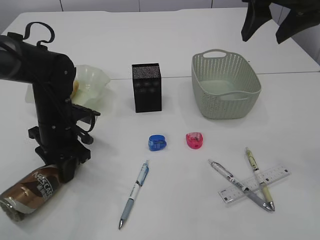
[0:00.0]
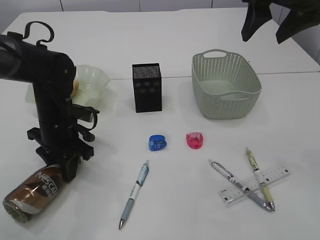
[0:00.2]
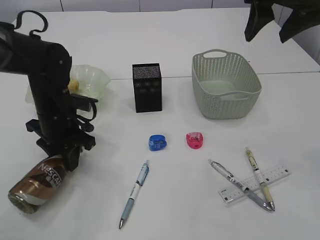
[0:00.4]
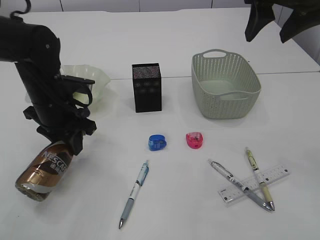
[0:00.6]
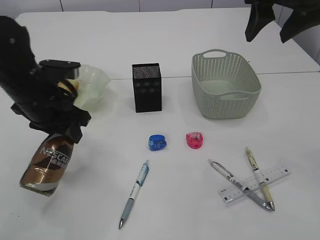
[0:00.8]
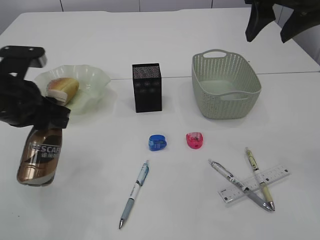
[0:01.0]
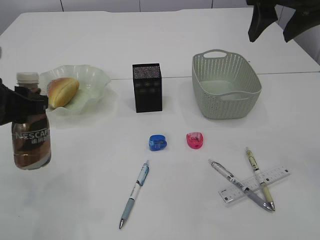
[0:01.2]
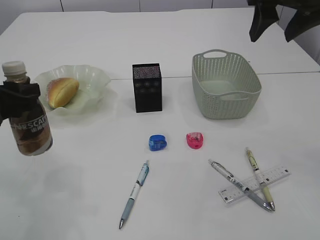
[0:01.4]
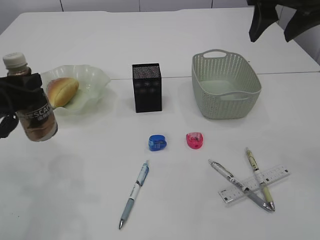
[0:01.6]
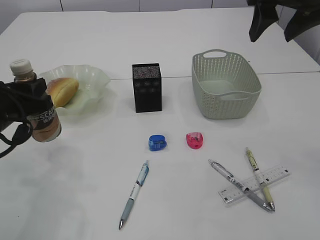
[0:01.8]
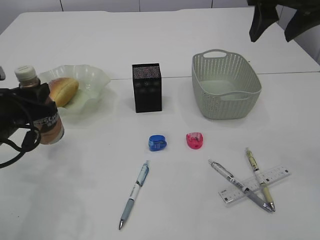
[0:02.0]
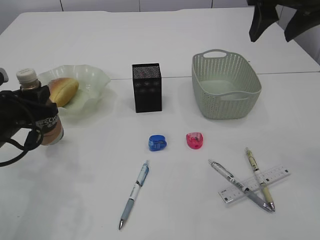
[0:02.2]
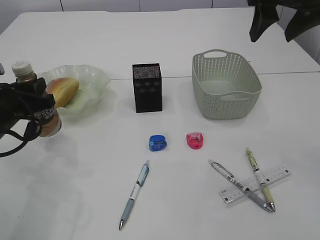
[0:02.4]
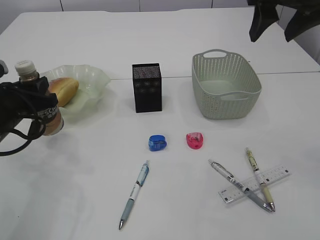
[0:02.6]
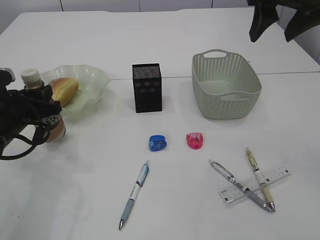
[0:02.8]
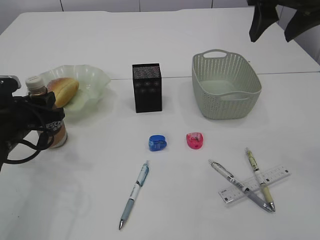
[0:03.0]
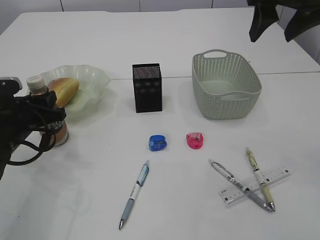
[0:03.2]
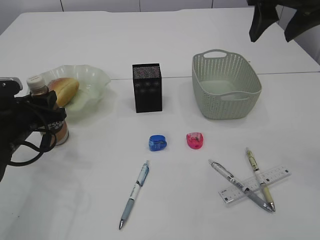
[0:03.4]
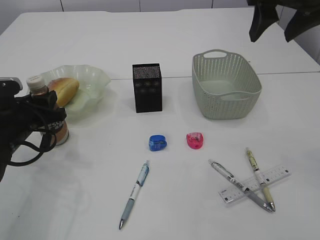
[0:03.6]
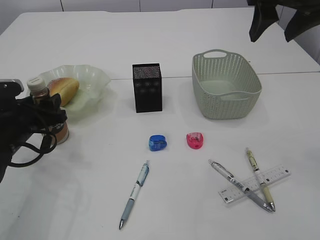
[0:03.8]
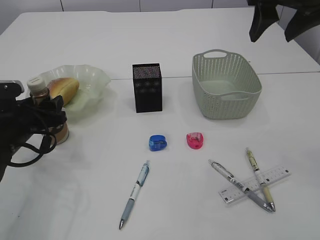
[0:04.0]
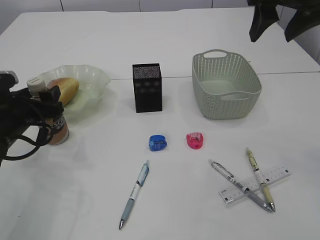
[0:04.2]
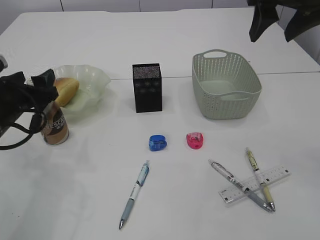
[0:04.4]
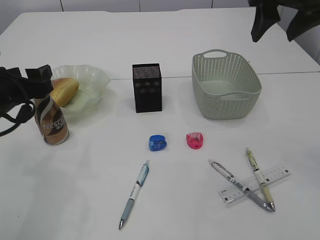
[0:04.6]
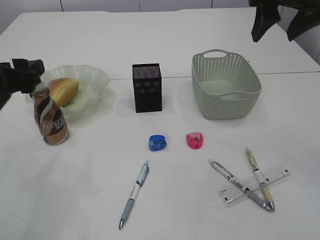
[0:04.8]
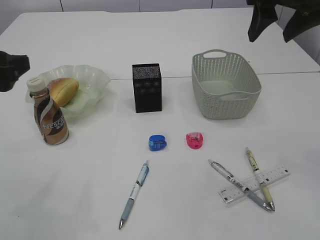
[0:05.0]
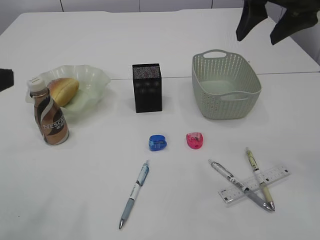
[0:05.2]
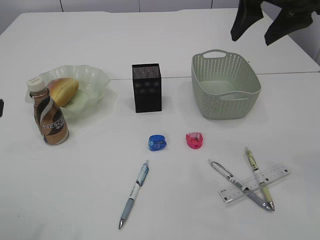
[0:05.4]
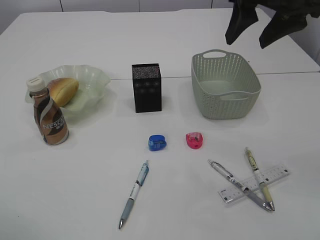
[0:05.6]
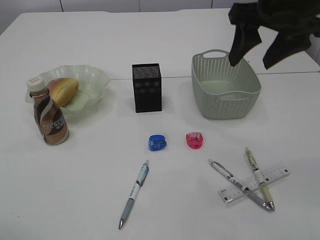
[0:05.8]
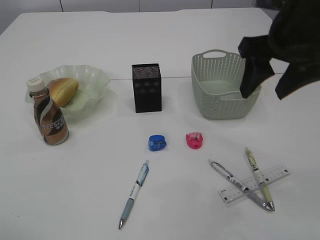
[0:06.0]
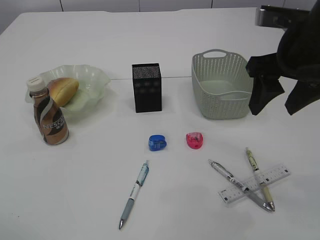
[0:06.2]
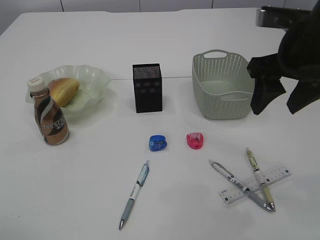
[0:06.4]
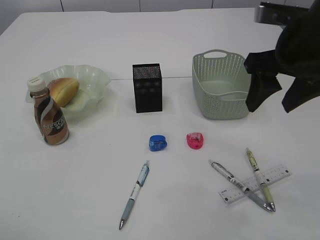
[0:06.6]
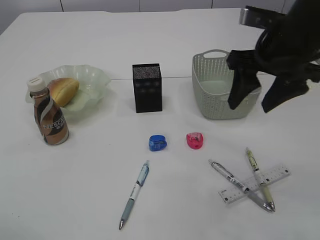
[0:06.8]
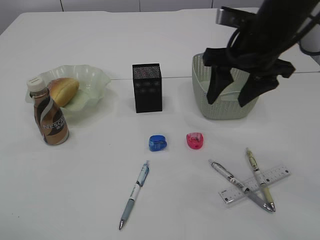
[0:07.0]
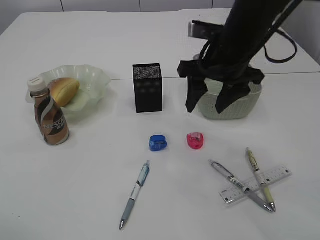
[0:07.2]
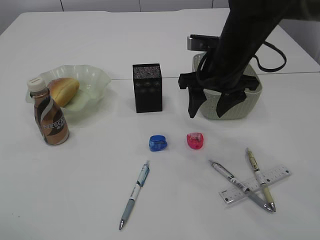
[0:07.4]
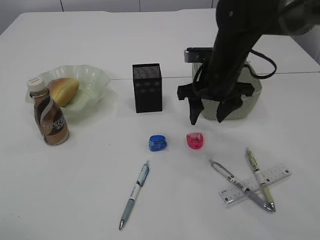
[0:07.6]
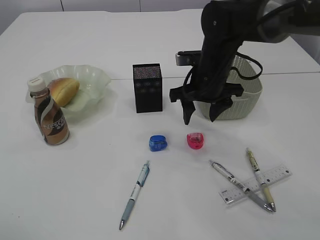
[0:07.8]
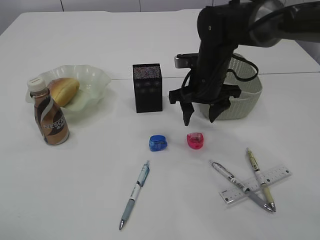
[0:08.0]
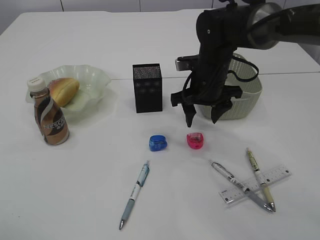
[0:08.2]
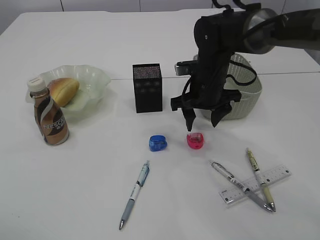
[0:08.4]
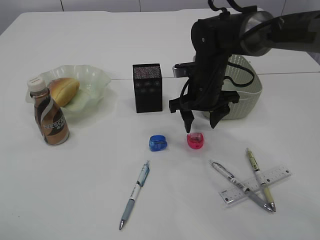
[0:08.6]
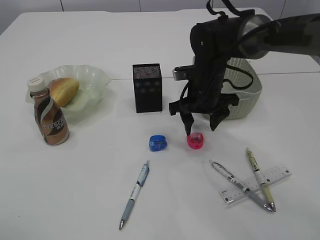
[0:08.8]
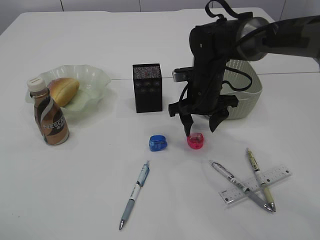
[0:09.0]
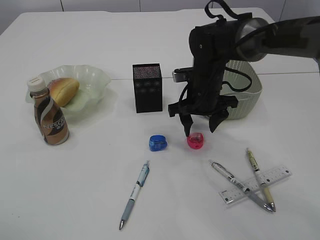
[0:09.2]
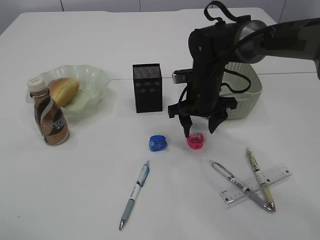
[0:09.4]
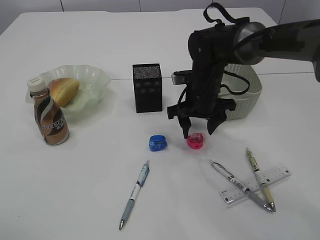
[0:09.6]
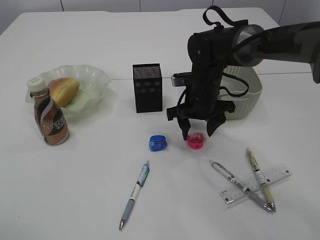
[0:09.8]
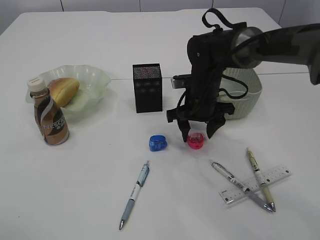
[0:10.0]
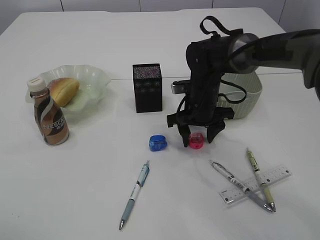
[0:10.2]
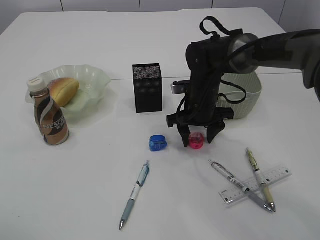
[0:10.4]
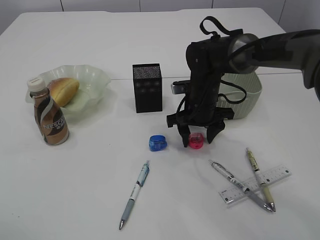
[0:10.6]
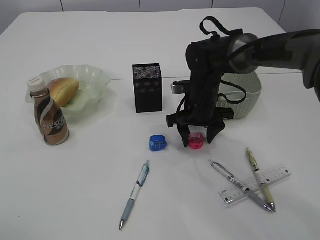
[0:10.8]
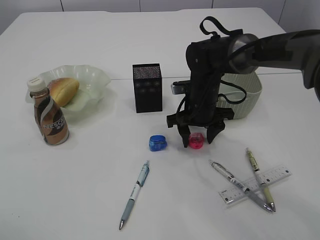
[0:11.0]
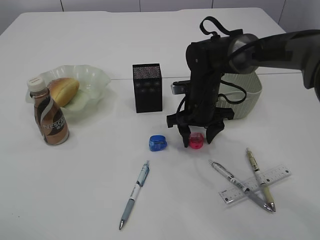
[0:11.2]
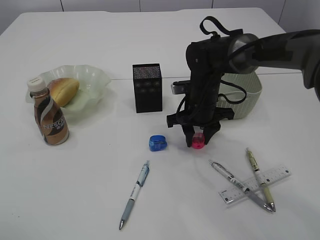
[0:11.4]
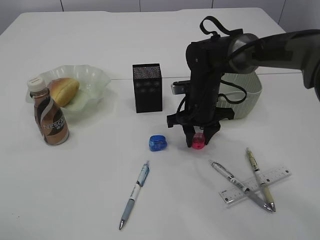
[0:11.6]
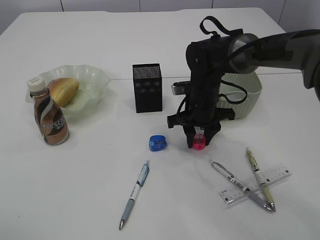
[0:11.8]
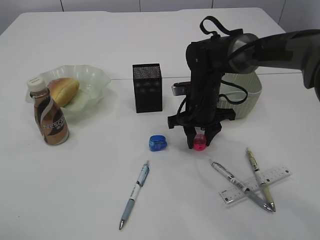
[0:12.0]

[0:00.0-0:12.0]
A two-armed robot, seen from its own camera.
Step, 0:01.0 to 0:05.0: Place the bottle.
0:00.0 to 0:01.6: The left gripper travels upward, backward and to the left by approximately 15 cm.
0:01.6 to 0:03.0: The left gripper travels downward by approximately 10 cm.
0:03.0 to 0:04.4: The left gripper opens.
0:04.4 to 0:06.0: The left gripper shifts roughly 20 cm backward and upward; the right gripper moves about 5 cm.
0:06.0 to 0:07.6: The right gripper goes about 15 cm downward, forward and to the left.
0:07.6 to 0:09.0: The right gripper heads downward, covering about 5 cm.
0:09.0 to 0:10.4: The grippers make only small movements.
0:10.4 to 0:12.0: The right gripper closes.

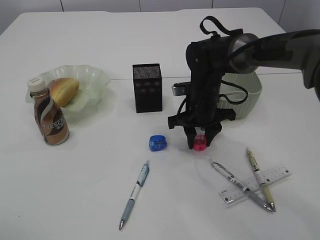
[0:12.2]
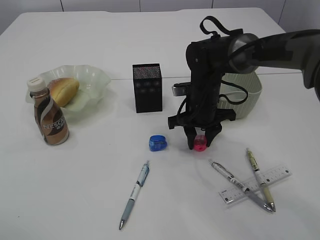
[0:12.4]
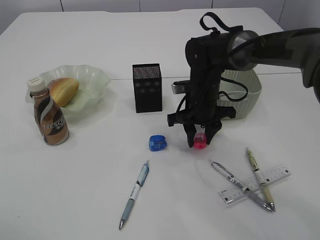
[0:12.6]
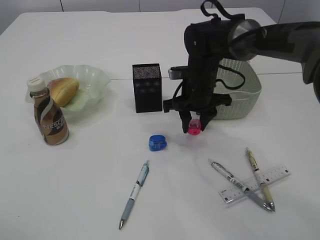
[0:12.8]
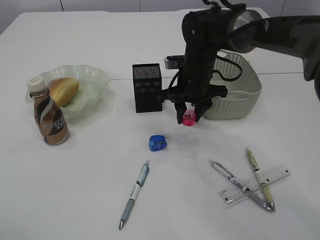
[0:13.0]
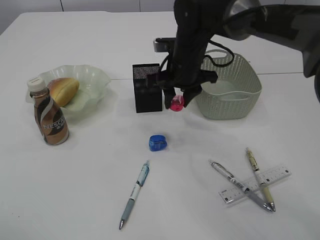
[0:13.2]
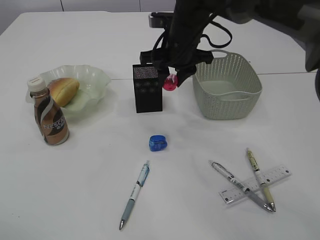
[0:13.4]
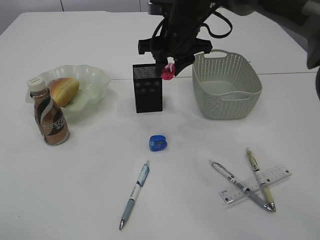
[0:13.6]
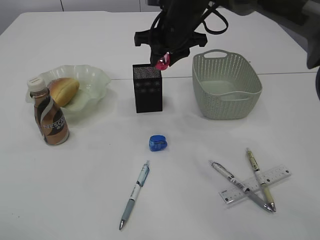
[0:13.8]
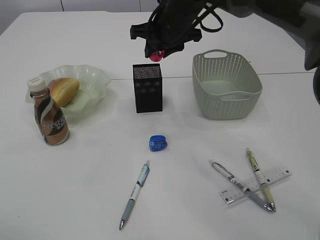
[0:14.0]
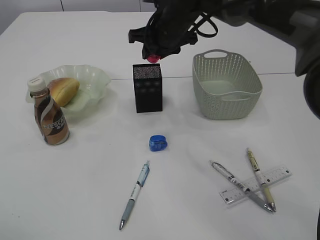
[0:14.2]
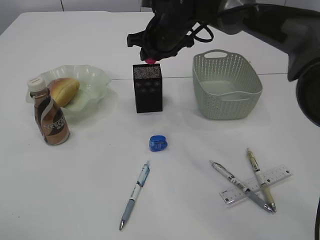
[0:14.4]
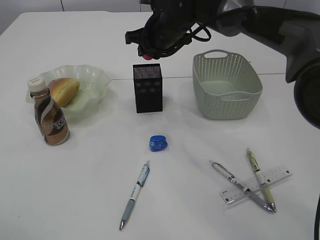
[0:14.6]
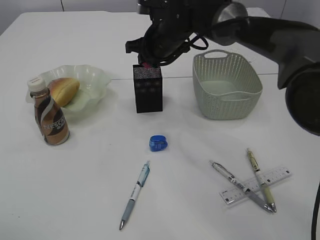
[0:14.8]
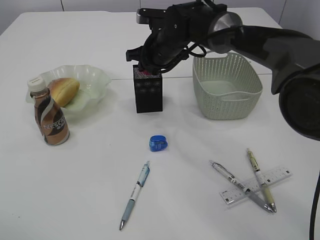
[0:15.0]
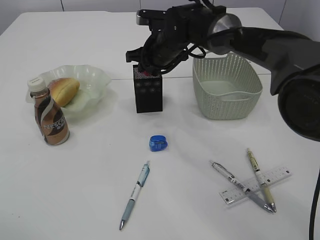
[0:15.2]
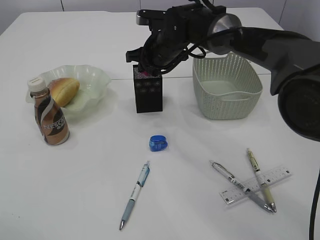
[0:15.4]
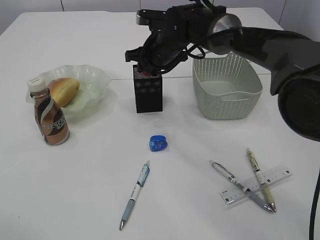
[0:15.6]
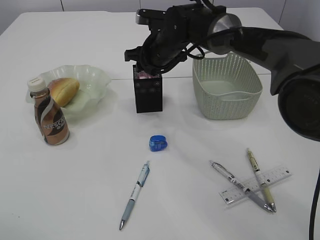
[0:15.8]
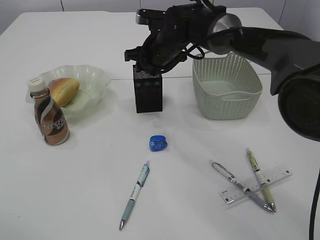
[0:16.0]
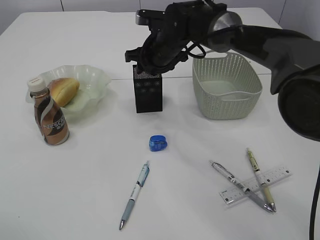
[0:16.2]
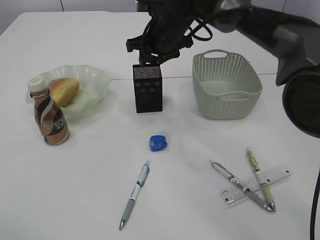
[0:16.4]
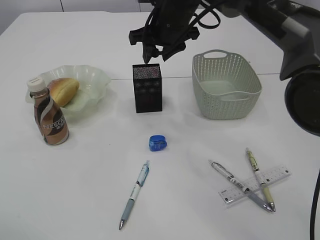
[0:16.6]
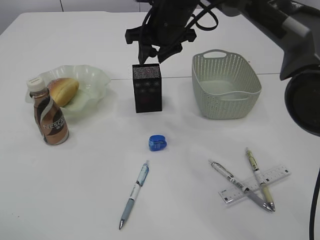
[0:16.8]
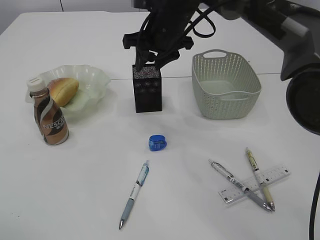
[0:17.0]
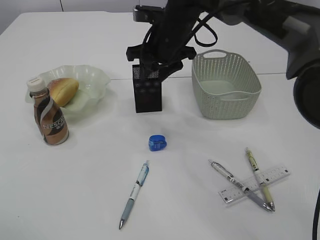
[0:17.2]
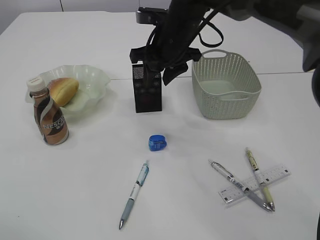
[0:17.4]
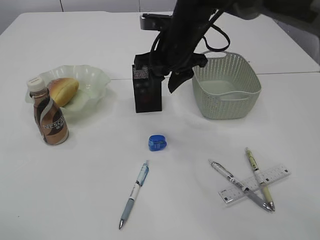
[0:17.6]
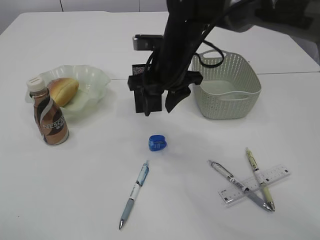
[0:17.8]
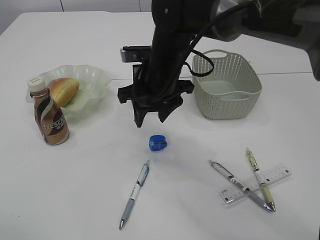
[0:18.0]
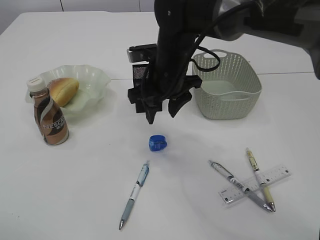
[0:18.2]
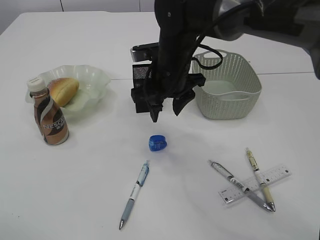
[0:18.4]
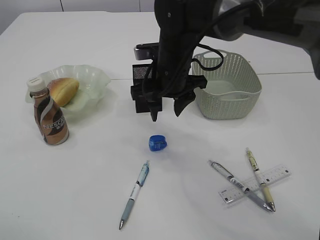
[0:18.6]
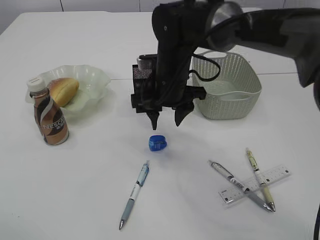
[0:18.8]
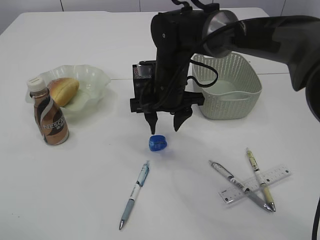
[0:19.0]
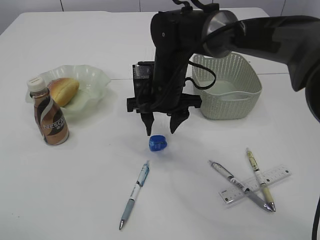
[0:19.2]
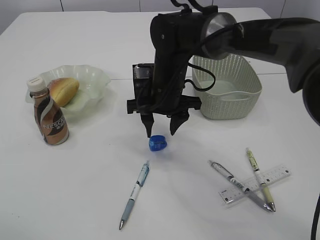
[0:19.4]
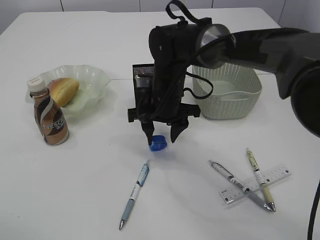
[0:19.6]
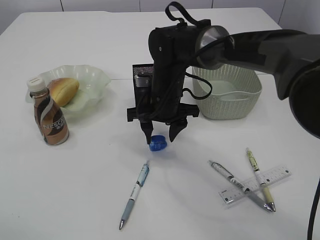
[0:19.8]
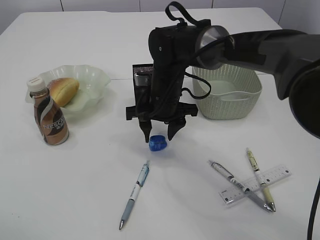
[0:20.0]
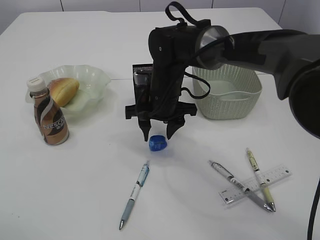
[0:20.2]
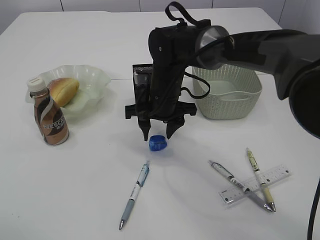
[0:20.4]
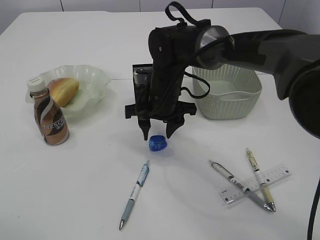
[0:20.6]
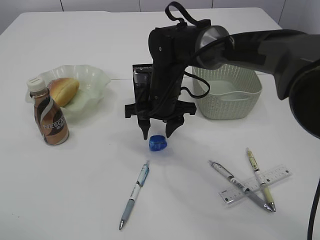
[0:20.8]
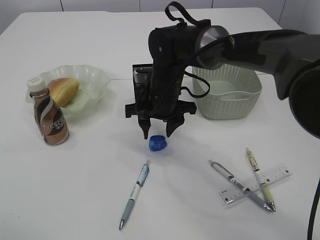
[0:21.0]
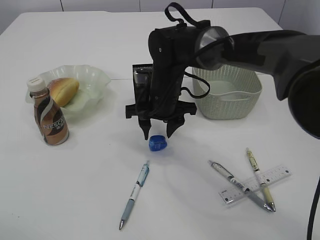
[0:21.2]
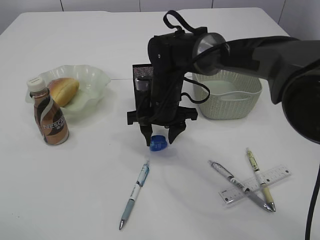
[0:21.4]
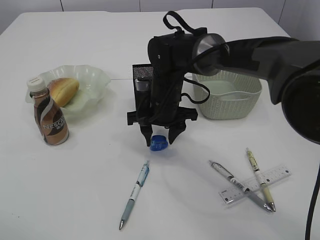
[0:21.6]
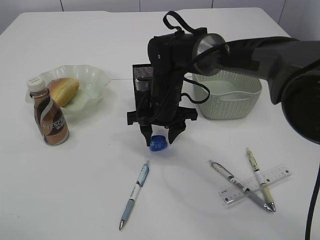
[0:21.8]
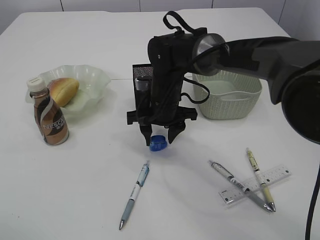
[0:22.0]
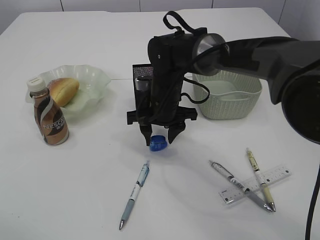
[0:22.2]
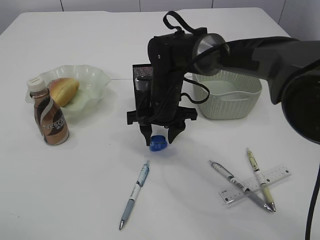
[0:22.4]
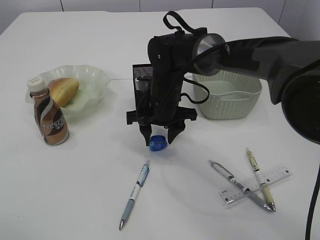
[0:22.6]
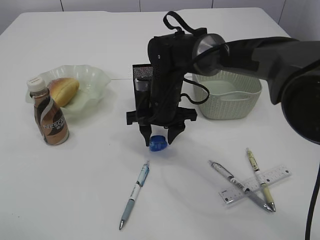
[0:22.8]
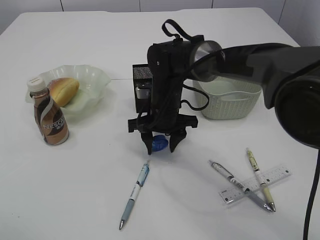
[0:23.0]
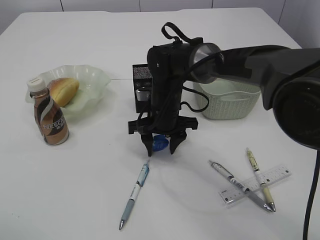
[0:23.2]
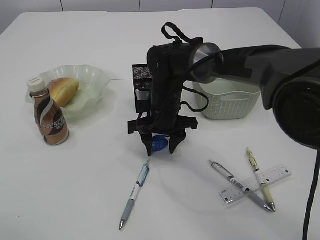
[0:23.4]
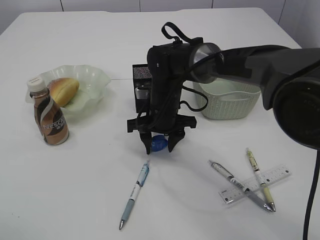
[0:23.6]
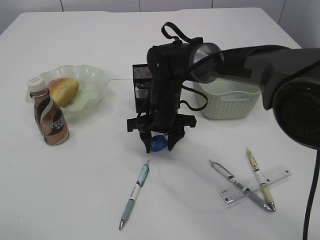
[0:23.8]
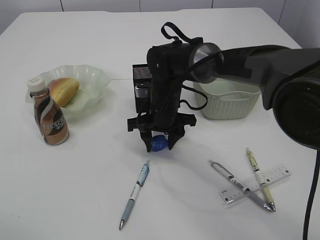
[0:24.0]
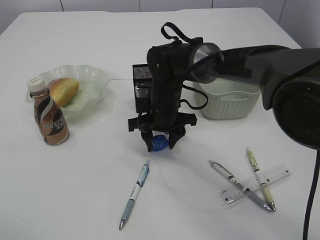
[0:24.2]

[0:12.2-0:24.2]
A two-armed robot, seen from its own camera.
Step, 0:13.2 to 0:16.4: Place the red pencil sharpener into the pen holder.
0:12.2 to 0:13.8: The right gripper moves upward, about 15 cm.
0:13.8 to 0:15.2: The right gripper shifts approximately 5 cm downward.
0:15.2 to 0:16.6: The right gripper is displaced upward by about 5 cm.
0:16.6 to 0:18.2: The right gripper shifts roughly 10 cm backward and downward.
0:18.2 to 0:19.8: The right gripper goes roughly 5 cm downward.
0:19.8 to 0:22.6: Both grippers stay put.
0:22.6 to 0:24.2: The grippers stay close to where they were, moving slightly.
